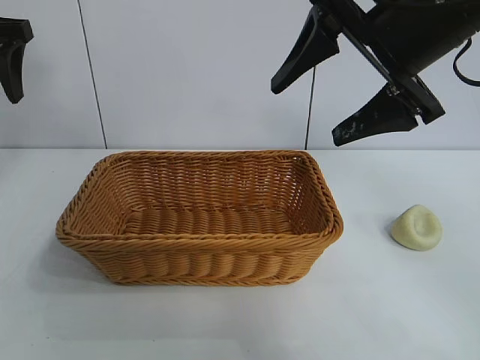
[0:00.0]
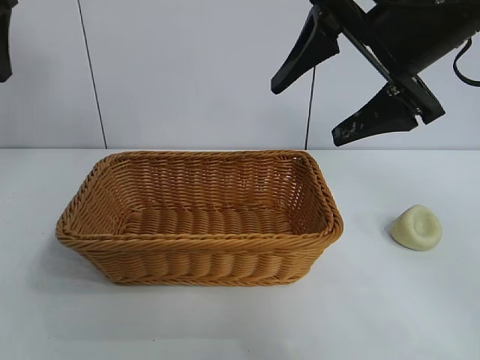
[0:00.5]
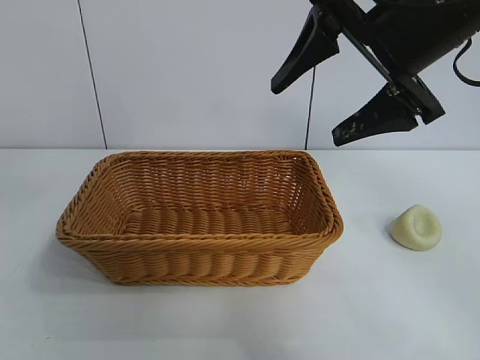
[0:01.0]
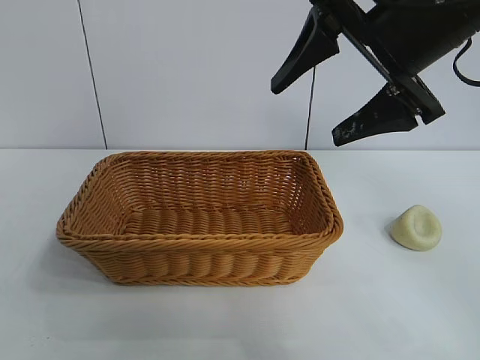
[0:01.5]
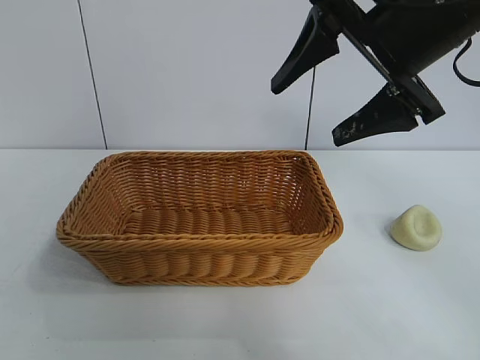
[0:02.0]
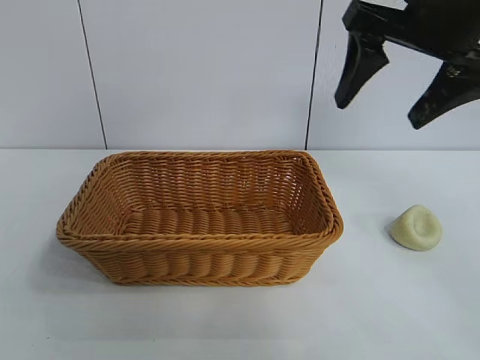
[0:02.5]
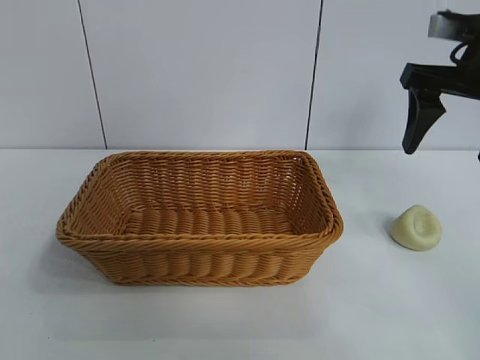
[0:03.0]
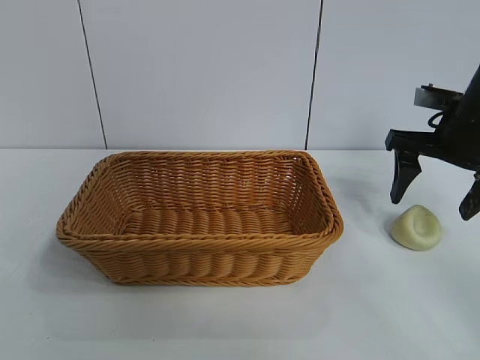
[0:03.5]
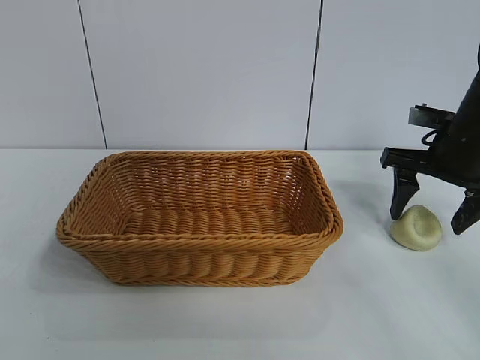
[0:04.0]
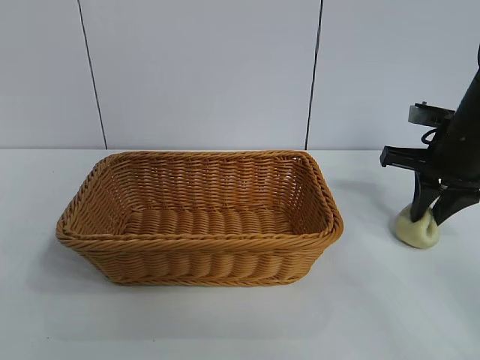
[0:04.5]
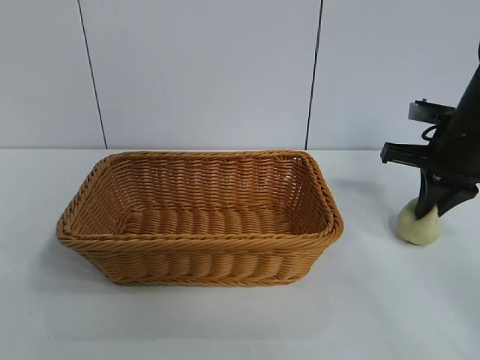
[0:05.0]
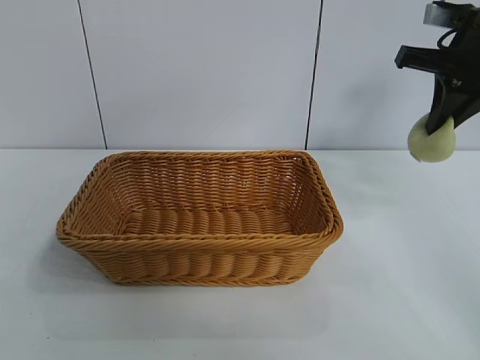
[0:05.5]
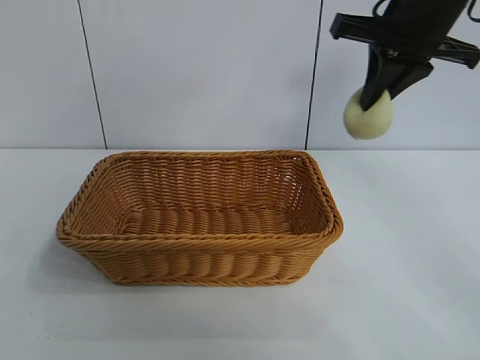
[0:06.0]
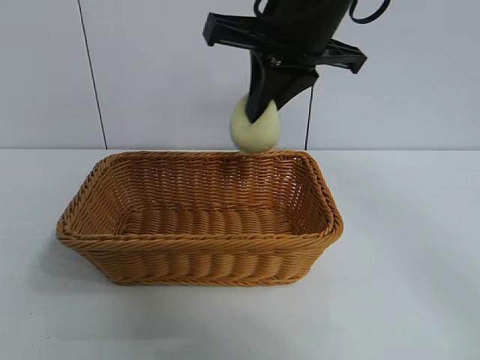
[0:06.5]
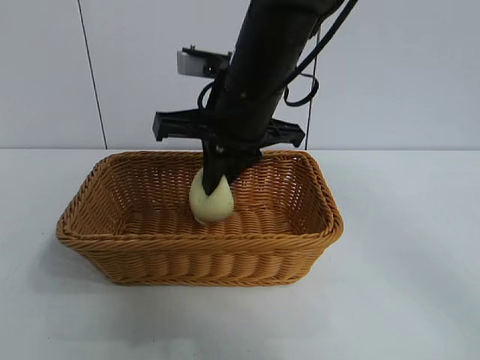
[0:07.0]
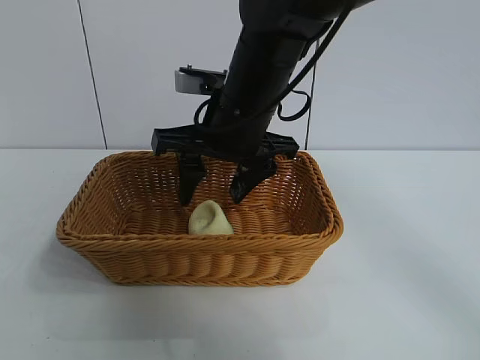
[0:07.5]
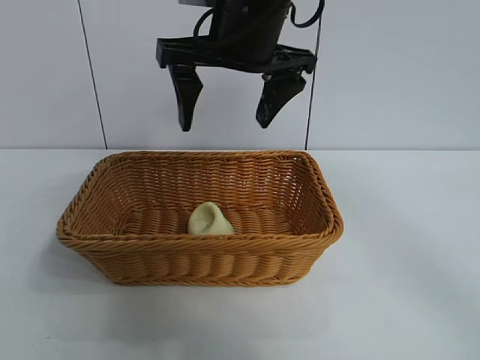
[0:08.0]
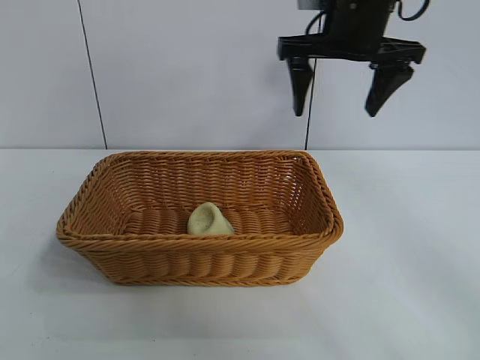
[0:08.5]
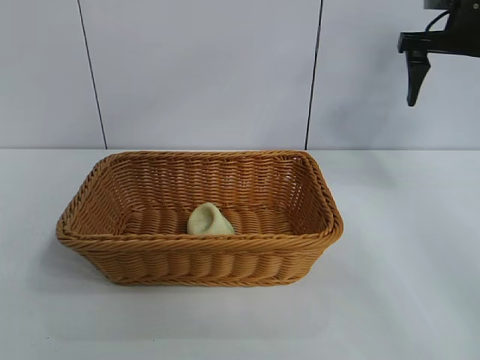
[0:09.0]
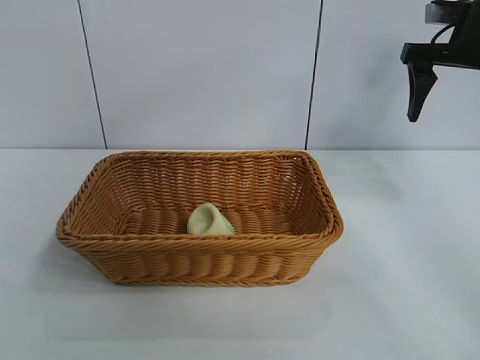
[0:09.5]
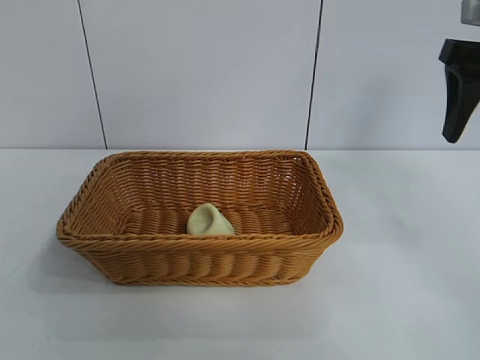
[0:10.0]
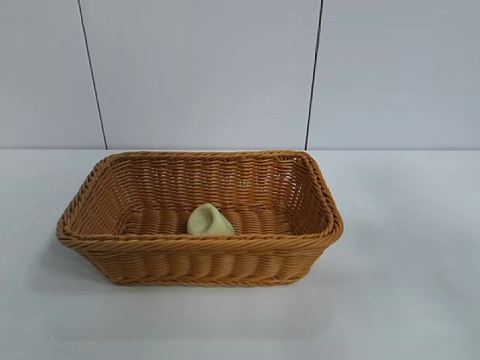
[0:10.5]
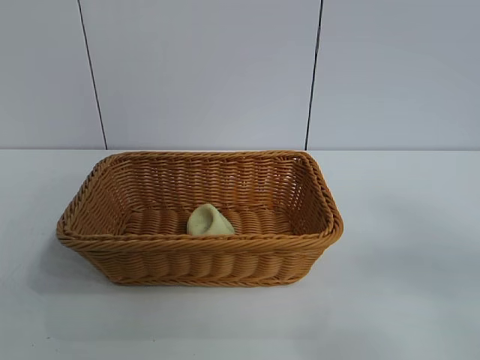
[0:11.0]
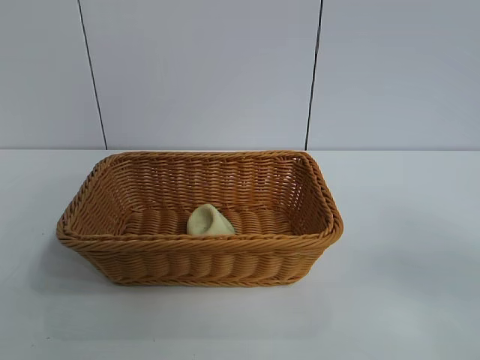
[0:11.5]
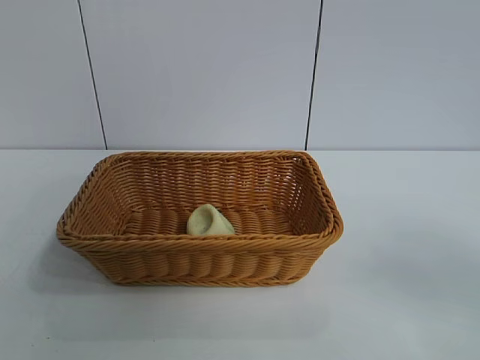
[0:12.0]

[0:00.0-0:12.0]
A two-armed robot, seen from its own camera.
Task of the whole recording: pick up the egg yolk pastry and put it into the basket.
Step, 0:00.0 to 0:04.5: Grasp egg yolk pastry with right gripper.
Step, 0:05.0 to 0:07.5: Place the egg yolk pastry in the basket with right gripper.

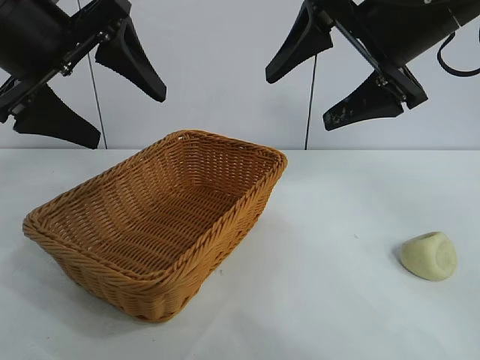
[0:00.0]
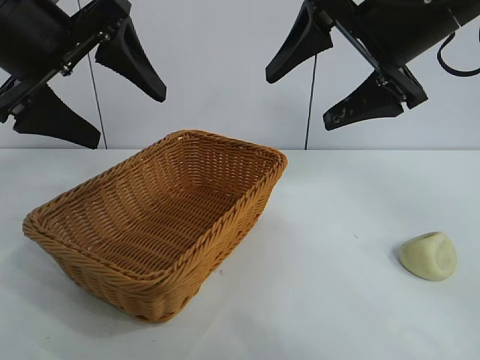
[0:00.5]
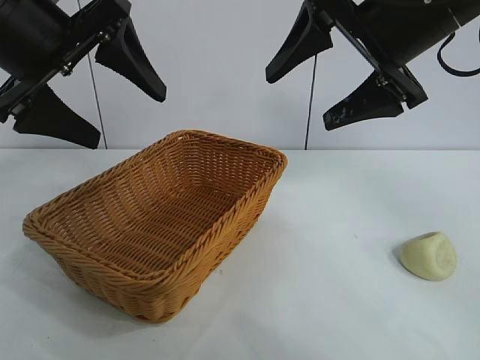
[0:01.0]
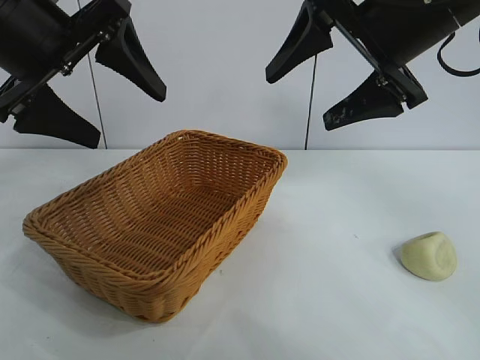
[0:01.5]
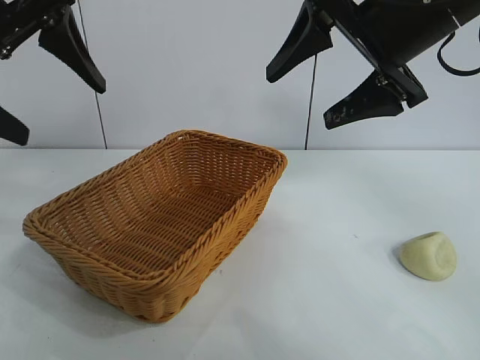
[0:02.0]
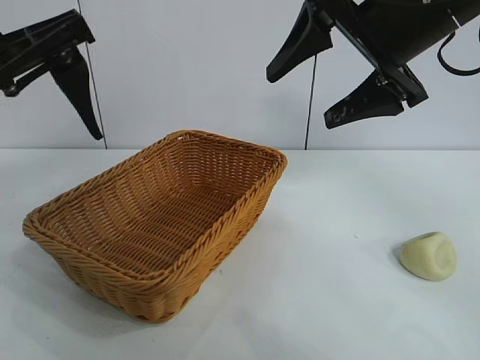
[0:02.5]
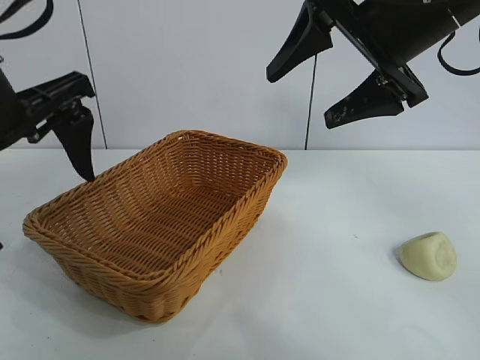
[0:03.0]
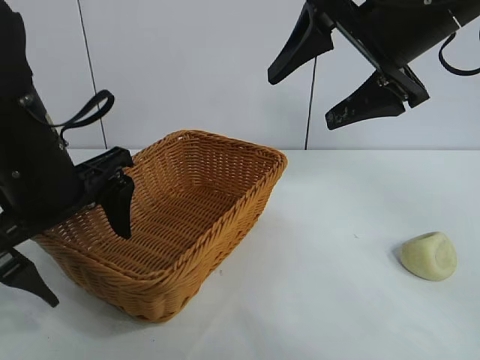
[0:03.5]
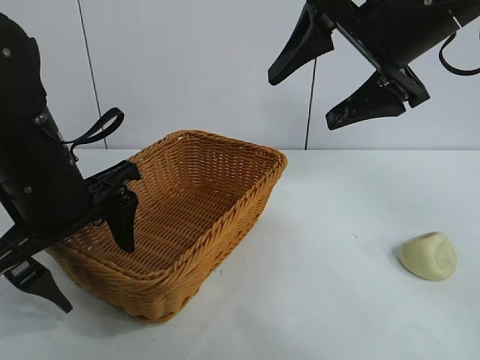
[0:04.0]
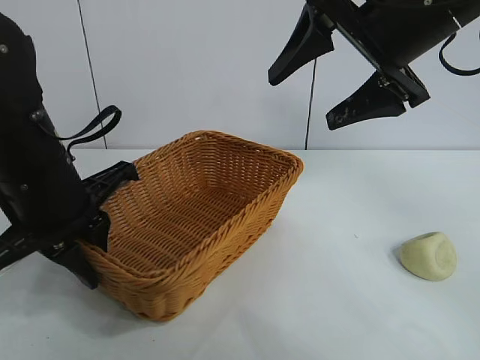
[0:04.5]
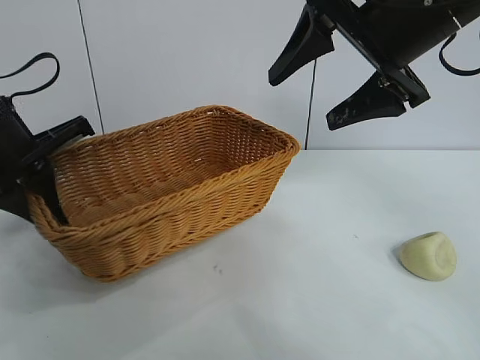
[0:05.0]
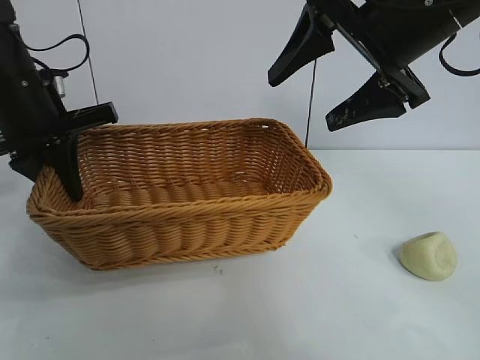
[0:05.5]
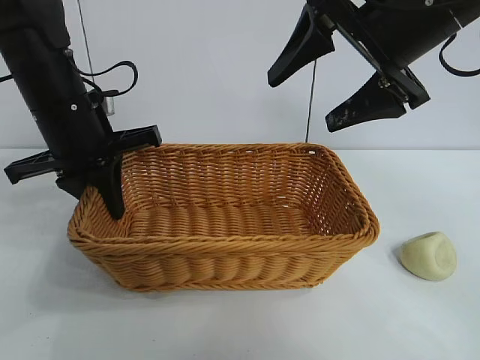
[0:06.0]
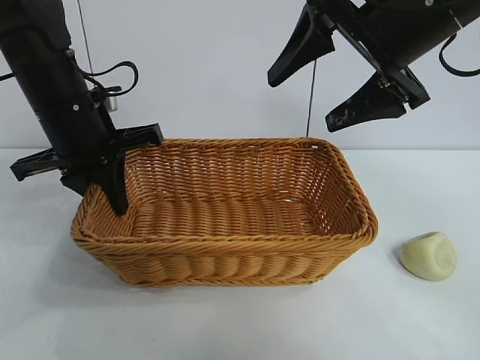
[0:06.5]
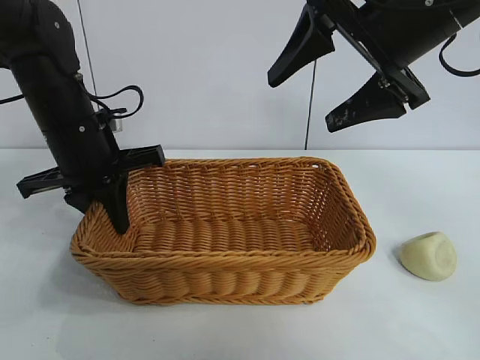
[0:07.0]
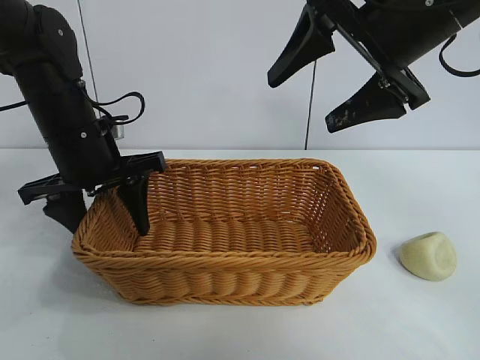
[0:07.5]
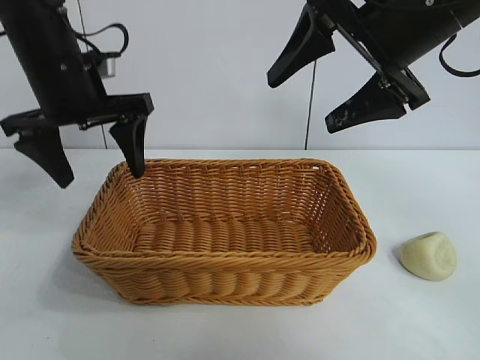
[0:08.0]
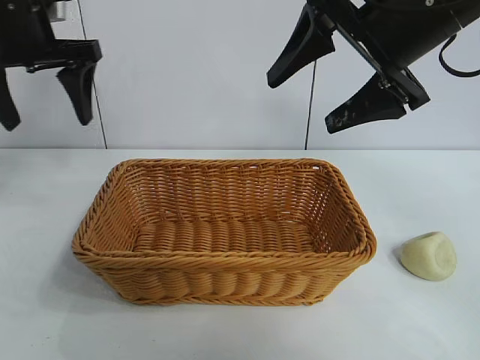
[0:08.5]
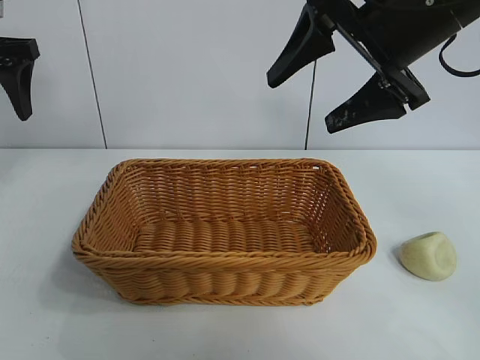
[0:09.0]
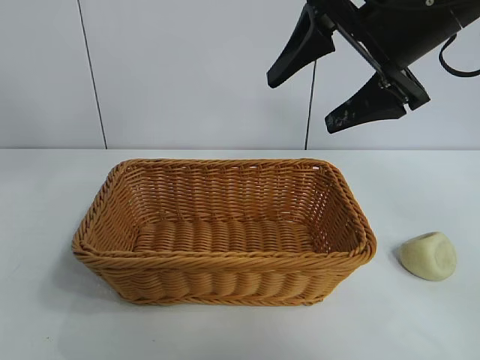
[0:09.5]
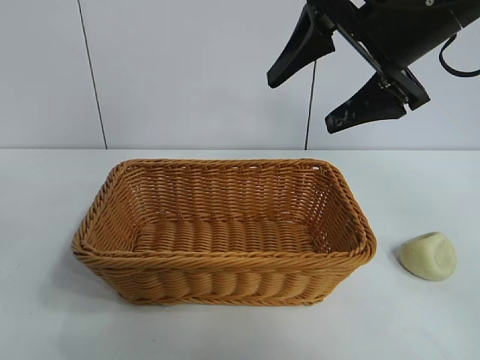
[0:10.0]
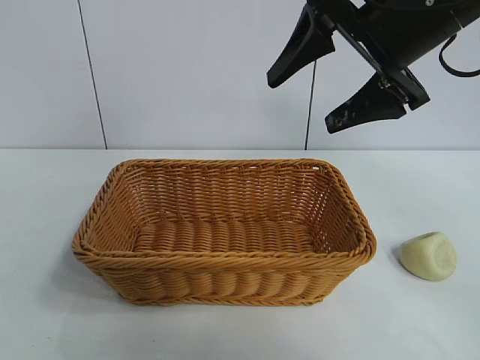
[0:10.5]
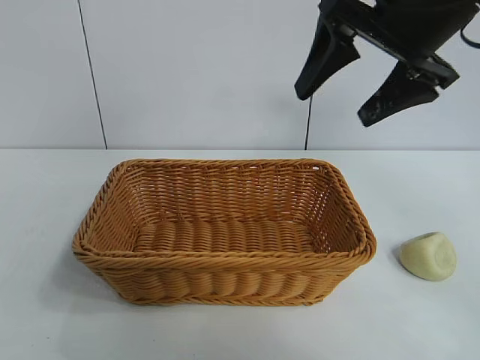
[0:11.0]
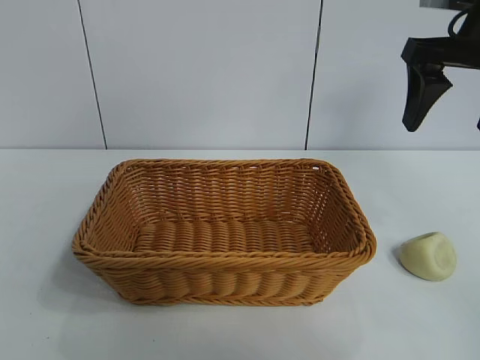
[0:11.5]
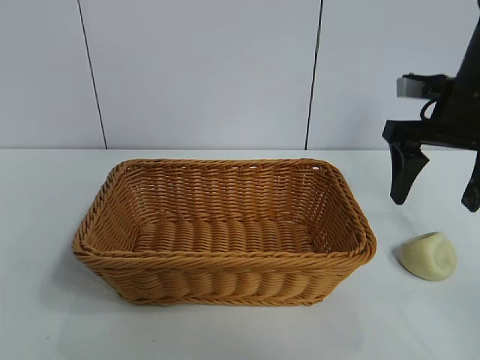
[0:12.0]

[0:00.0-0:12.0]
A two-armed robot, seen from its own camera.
Task of the whole recording: pick up the egg yolk pastry and put it into the basket.
Step, 0:02.0 to 0:04.0: Grasp the basket with left gripper.
Step, 0:04.5 to 0:07.5: Place the basket in the center of view with left gripper.

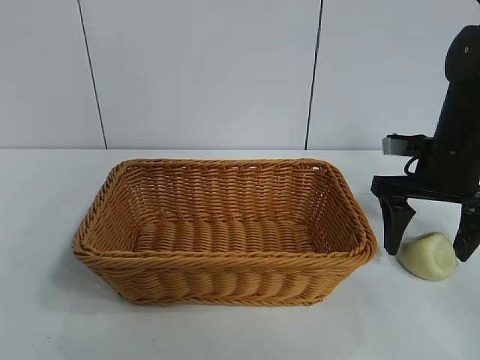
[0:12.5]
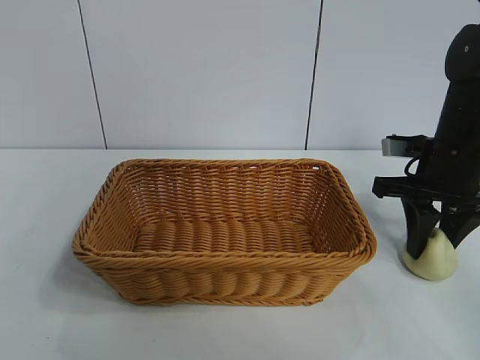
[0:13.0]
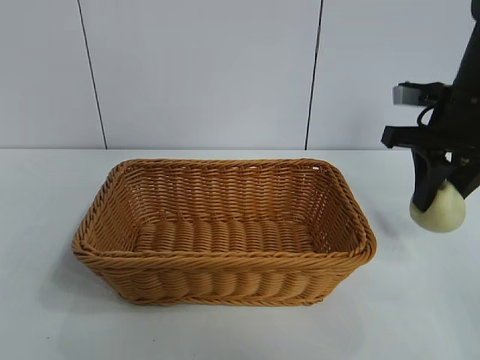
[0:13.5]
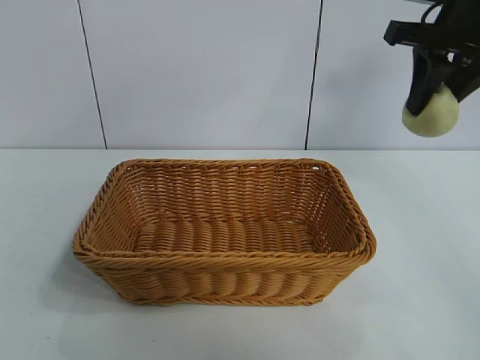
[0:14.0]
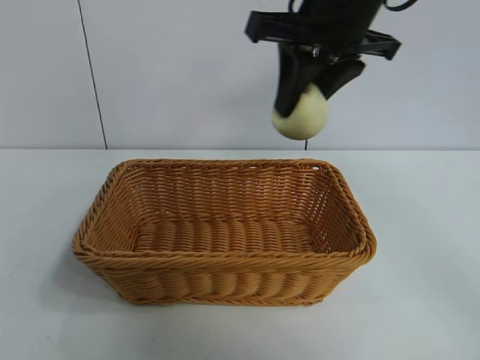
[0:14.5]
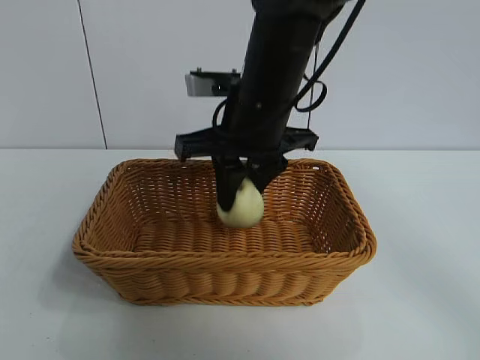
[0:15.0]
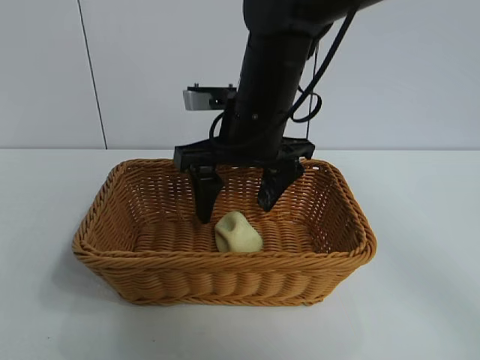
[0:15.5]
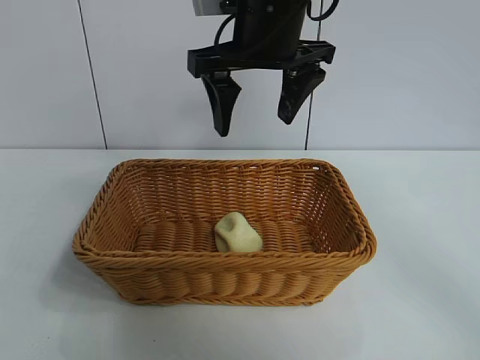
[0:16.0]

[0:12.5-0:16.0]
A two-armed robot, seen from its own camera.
Task of the whole recording: pick up the egg yolk pastry and put it into the basket.
Step, 0:13.5 to 0:15.0: Place the egg yolk pastry in the basket with right gripper.
